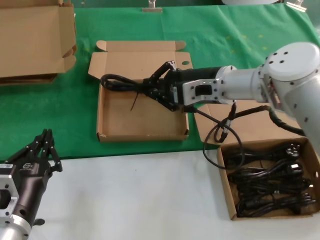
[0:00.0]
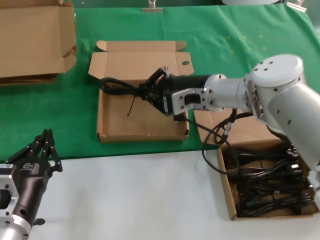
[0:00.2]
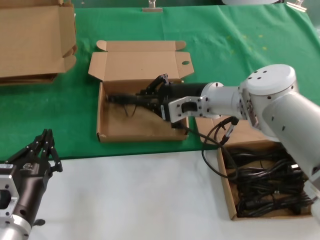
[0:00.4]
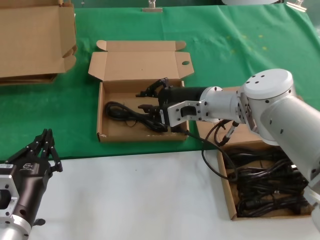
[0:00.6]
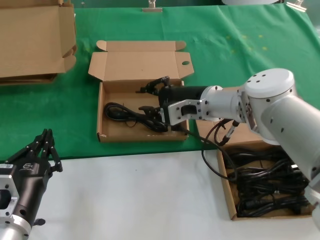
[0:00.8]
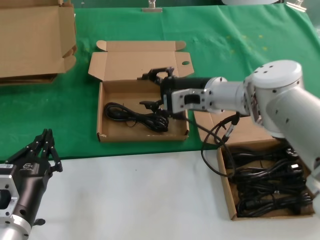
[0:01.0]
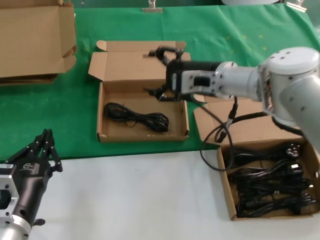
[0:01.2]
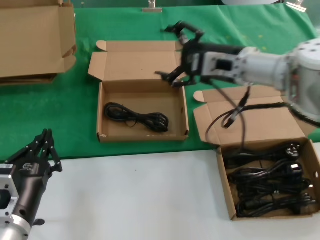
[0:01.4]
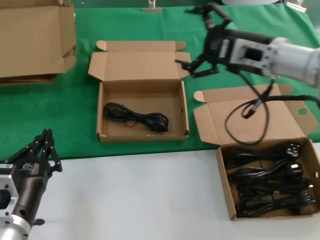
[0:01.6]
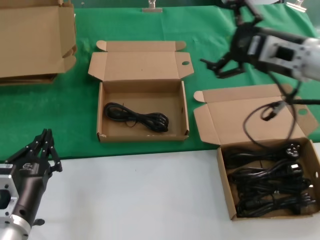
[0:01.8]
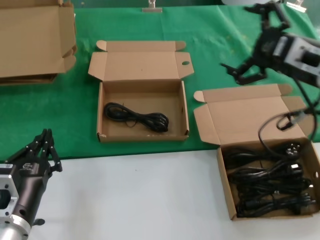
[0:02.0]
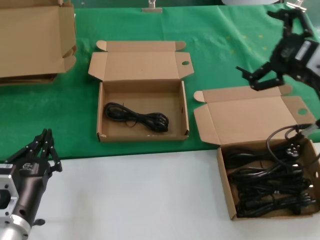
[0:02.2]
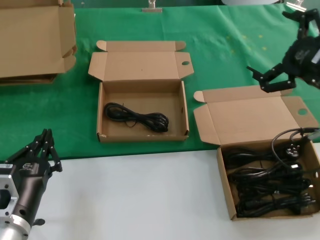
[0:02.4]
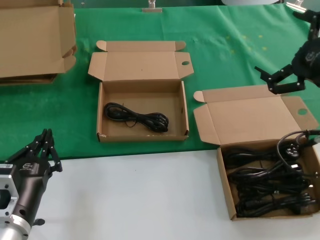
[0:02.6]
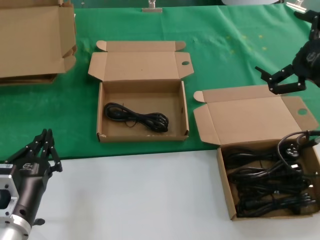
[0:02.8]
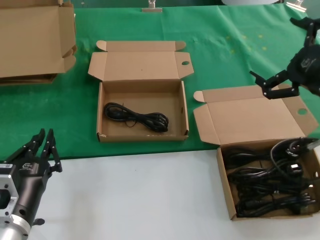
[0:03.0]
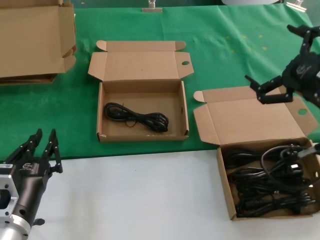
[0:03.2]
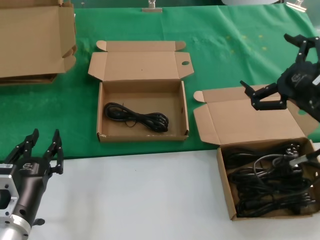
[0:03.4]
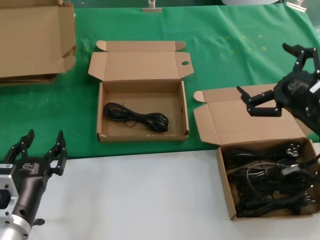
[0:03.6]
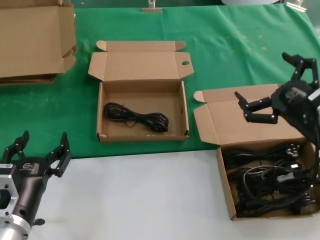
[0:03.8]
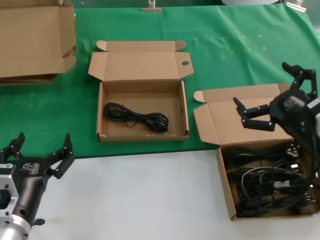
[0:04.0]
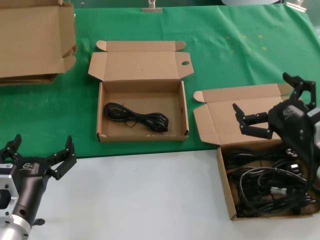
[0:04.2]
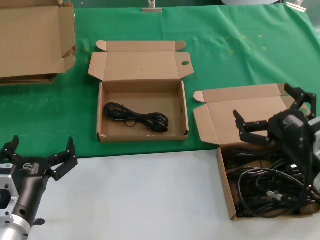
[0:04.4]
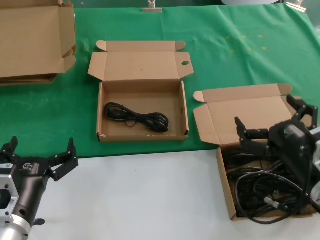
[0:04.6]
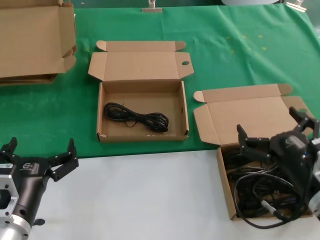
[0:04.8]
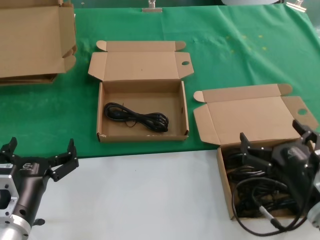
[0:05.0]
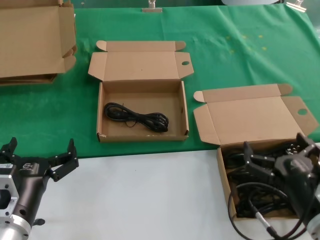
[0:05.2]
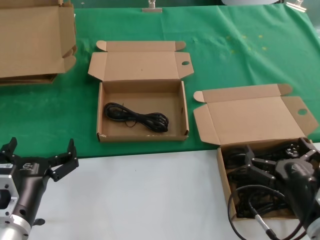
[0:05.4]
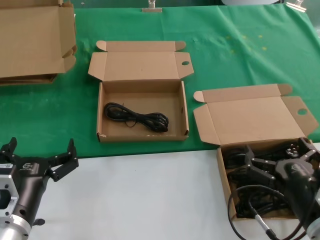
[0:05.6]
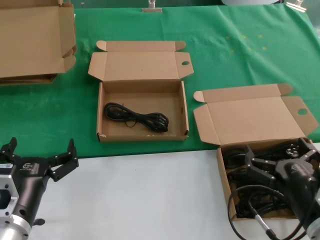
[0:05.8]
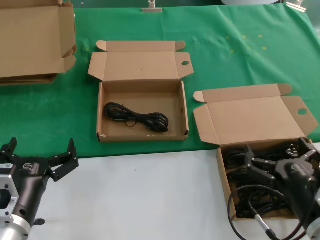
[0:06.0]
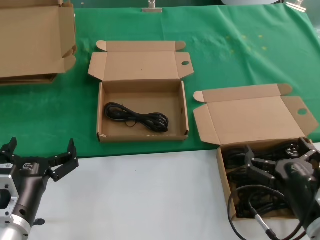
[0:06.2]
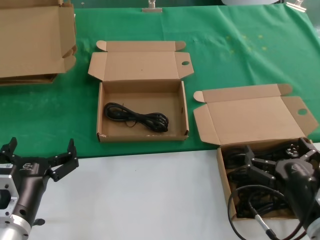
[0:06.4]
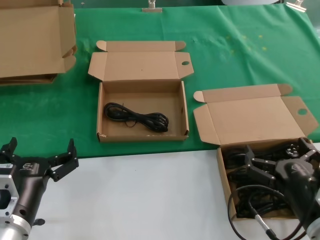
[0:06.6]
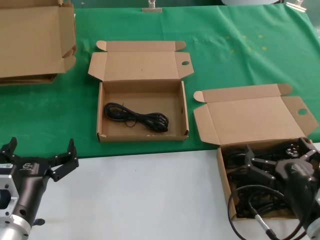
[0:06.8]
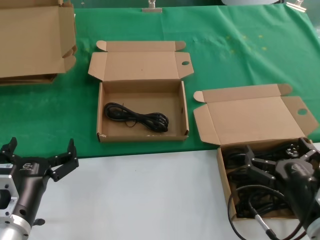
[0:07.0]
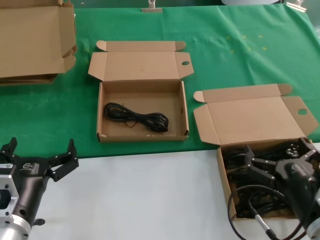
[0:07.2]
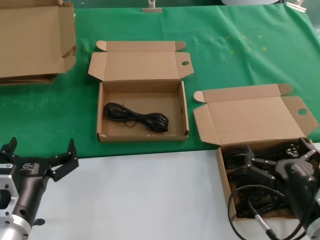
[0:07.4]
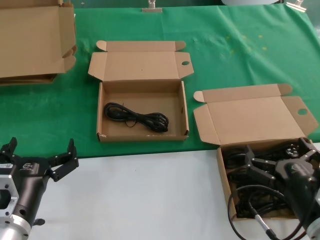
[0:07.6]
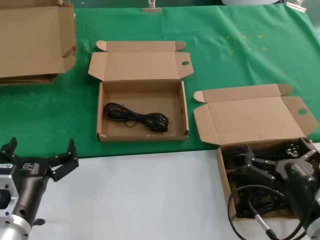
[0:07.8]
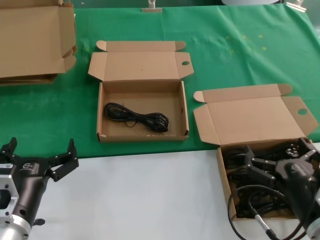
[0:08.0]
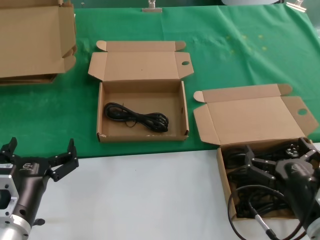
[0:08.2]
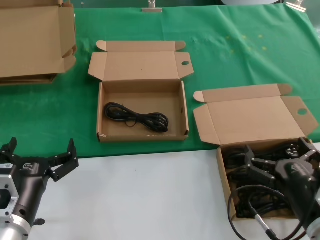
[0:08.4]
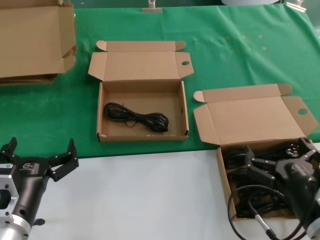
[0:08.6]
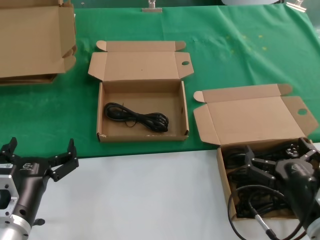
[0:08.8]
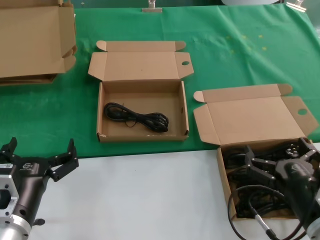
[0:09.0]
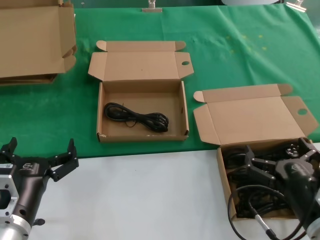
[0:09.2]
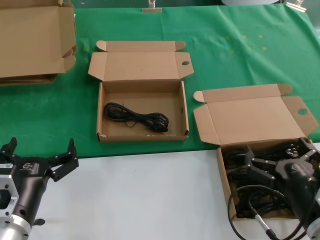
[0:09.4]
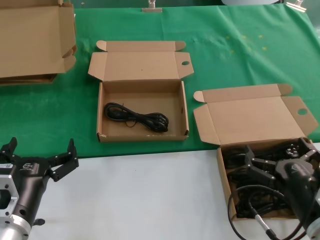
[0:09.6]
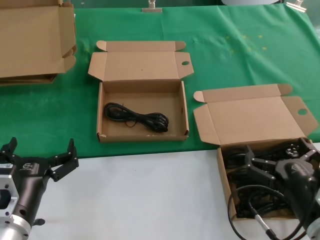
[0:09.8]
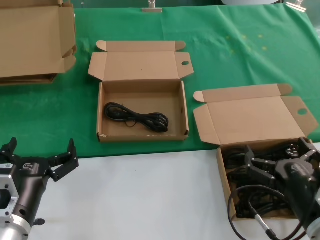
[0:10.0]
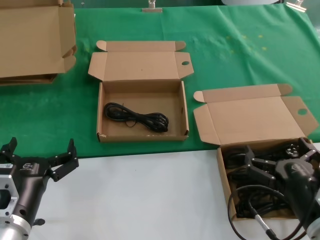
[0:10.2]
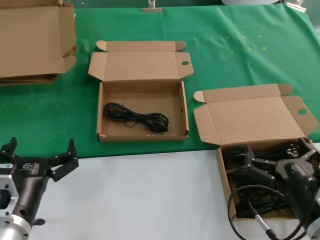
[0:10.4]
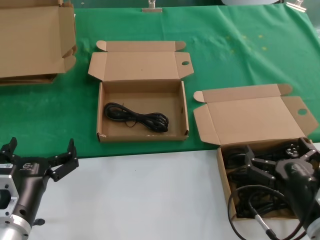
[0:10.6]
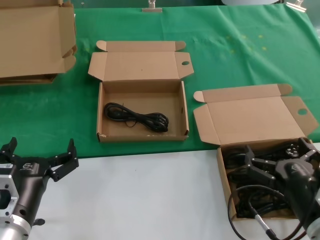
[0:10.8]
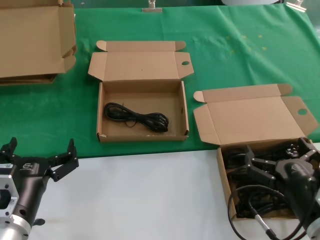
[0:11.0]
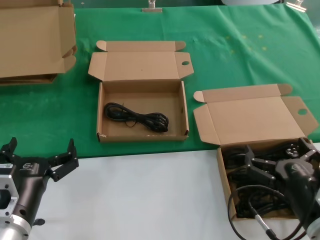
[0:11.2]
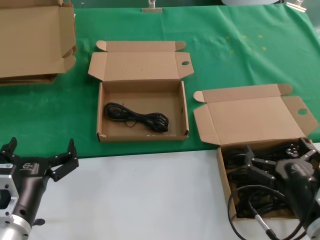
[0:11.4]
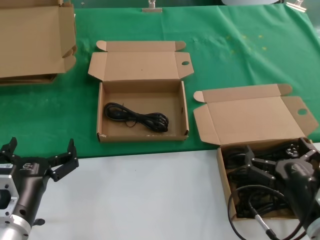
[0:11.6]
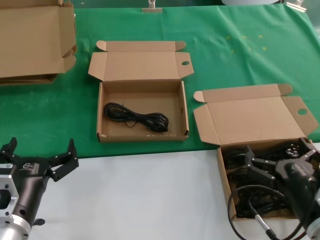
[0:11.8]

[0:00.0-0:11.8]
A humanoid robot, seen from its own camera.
Task of the whole recording: take the parts from the box containing them and put them into an empty box.
0:01.4 to 0:03.0: The right hand is displaced backward and to the right by about 20 cm.
0:03.0 to 0:04.4: The right hand travels downward by roughly 15 cm.
0:04.4 to 0:06.0: The right hand heads downward and backward, covering about 10 cm.
0:06.0 to 0:11.8: Both hands stay put.

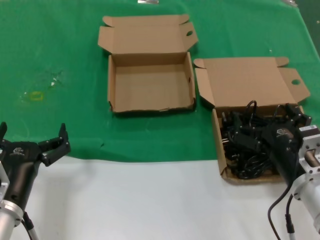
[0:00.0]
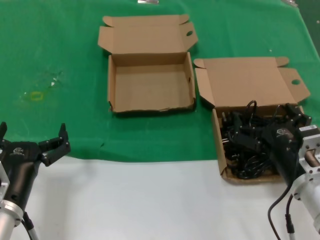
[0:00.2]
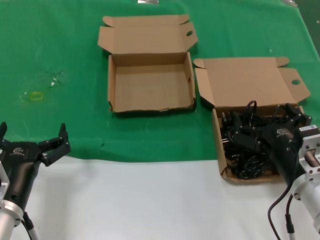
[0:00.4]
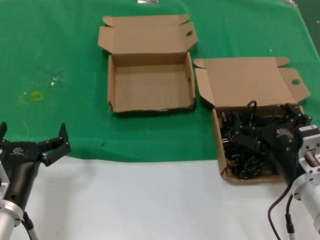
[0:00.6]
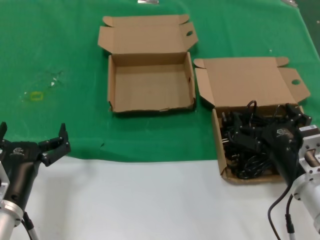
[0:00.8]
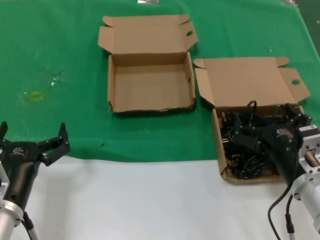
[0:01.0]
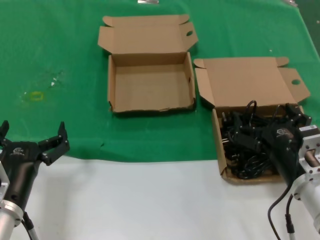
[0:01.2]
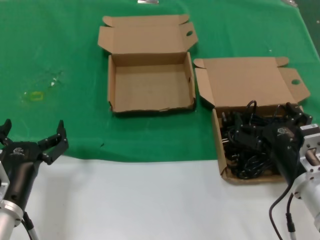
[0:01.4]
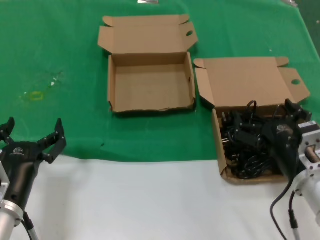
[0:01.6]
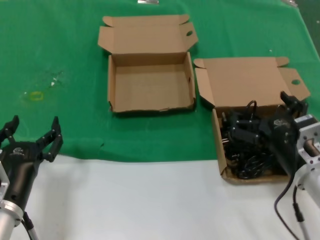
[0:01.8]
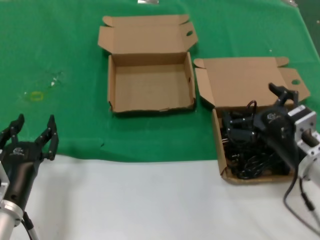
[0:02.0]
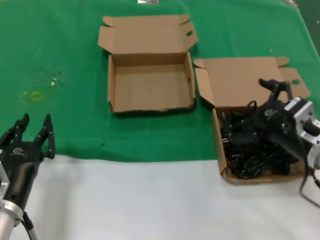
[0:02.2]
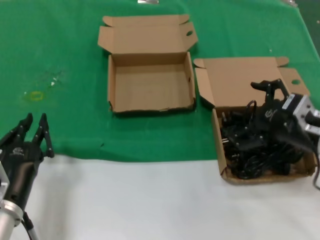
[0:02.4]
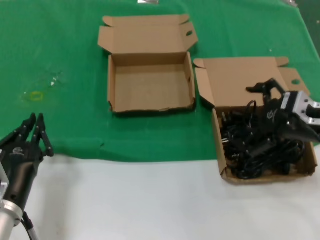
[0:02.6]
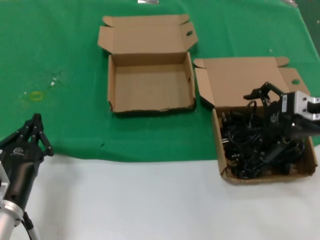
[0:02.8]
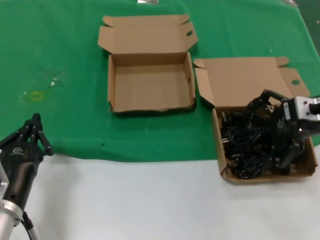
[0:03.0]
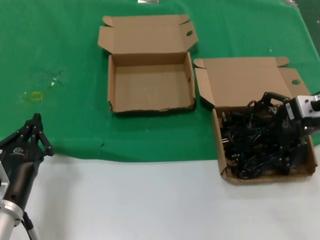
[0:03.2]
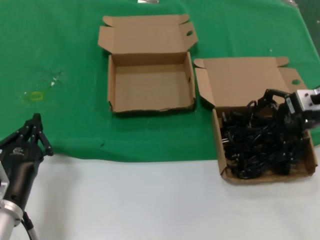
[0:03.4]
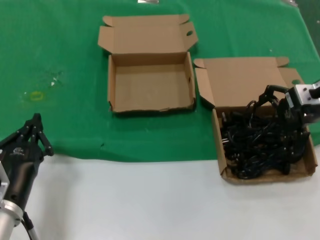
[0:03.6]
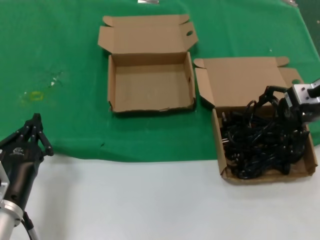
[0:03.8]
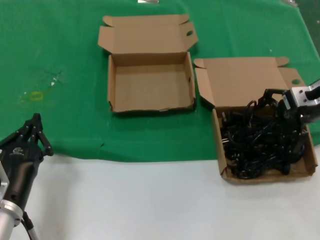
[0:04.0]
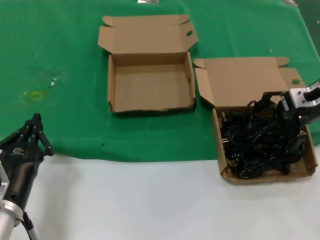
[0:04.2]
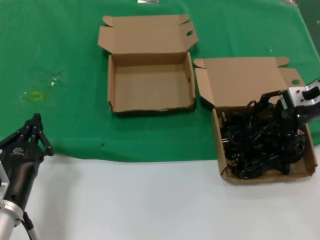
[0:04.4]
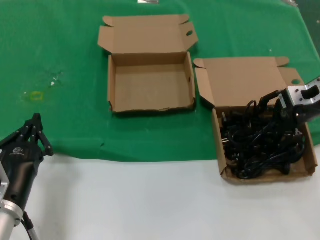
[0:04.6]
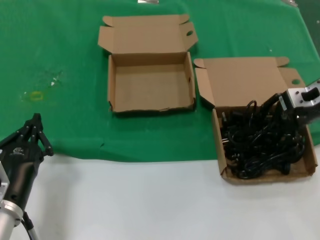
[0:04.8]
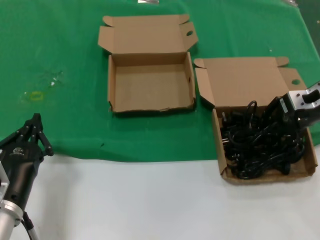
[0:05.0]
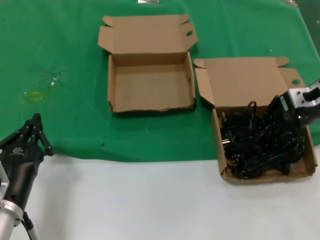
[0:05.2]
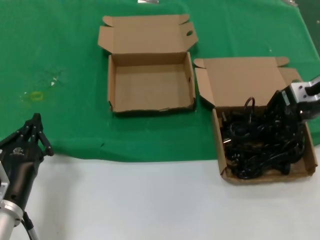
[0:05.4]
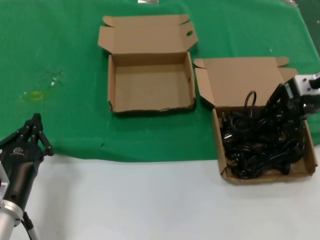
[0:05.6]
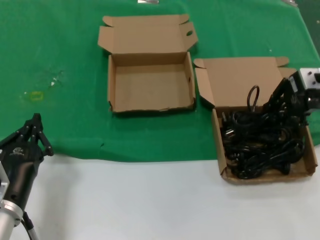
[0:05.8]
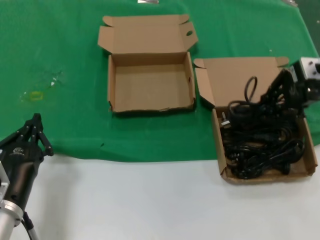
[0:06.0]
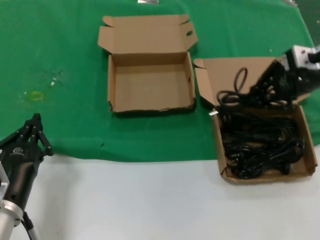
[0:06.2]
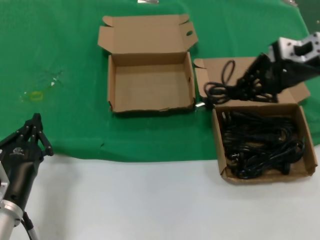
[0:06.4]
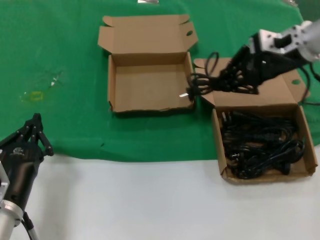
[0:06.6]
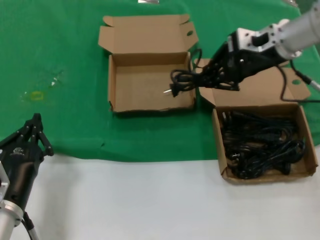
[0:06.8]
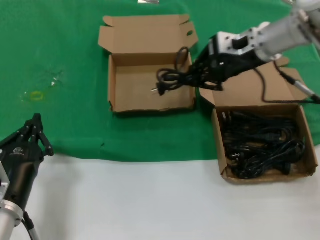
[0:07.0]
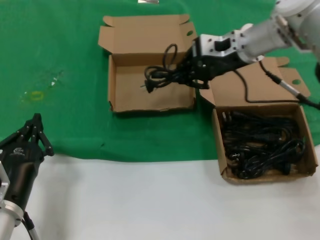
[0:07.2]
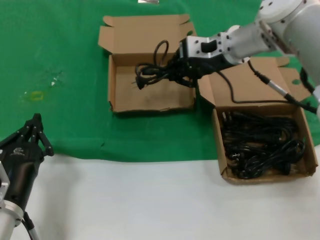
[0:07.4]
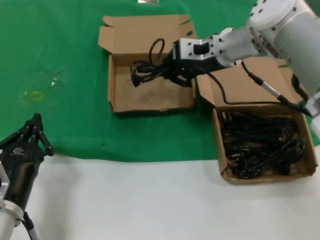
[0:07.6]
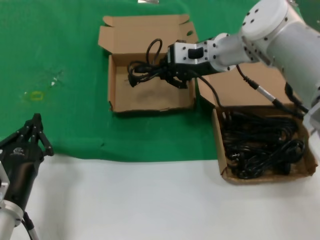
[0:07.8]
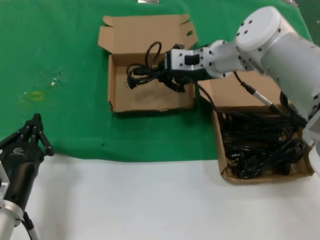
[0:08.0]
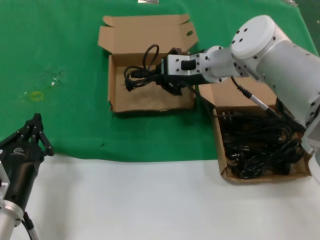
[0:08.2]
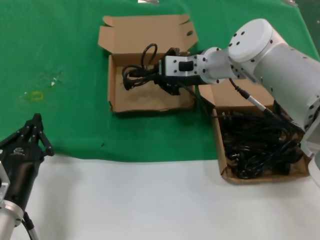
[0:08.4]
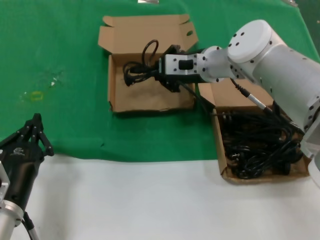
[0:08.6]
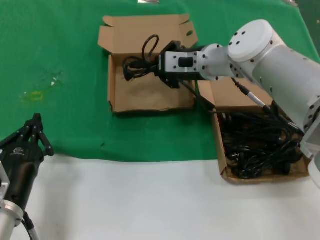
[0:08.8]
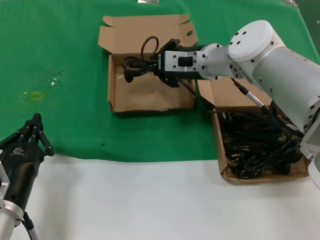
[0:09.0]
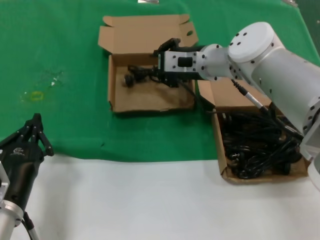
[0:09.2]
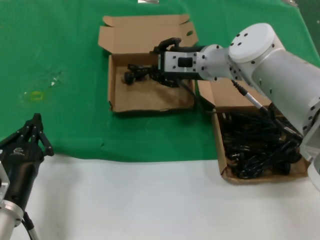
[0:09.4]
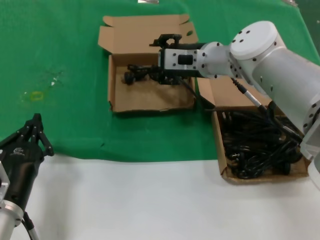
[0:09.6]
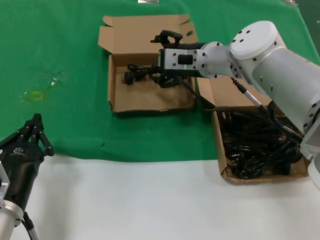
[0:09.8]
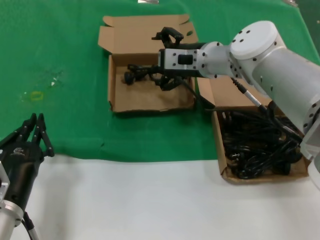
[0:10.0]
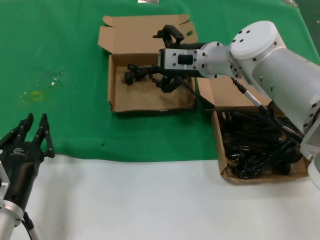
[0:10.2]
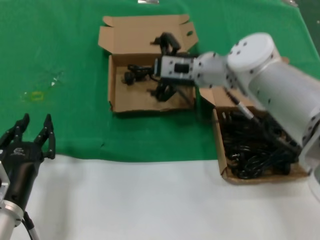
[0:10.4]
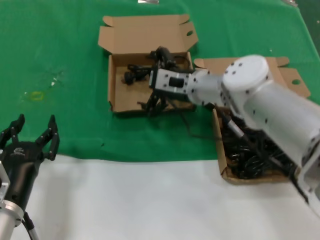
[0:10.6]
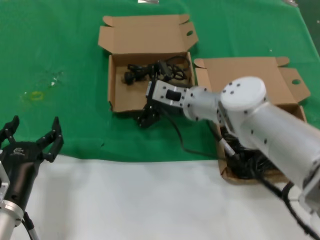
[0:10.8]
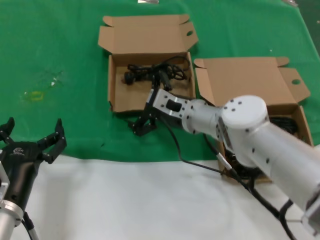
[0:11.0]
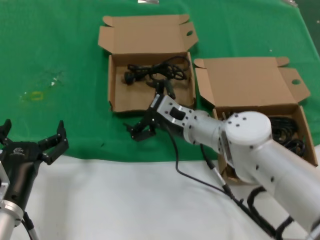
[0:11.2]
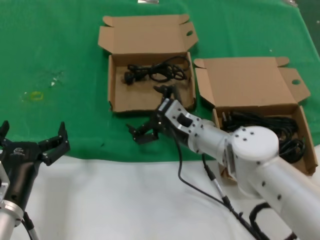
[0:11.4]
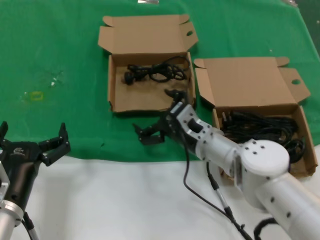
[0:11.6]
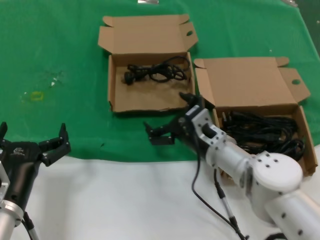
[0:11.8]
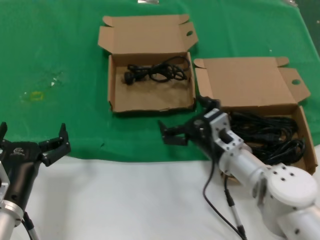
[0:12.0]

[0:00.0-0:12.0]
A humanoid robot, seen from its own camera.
Task of the whole recording: take the parts from the box containing them and put them into an empty box.
Step, 0:00.0 to 0:04.4: Grasp the data cable.
Step, 0:04.6 to 0:09.2: Place the data cable in the another box.
0:00.0 to 0:01.6: Neither hand changes place.
0:01.6 to 0:03.0: The right hand is displaced upward, forward and to the right by roughly 20 cm.
0:03.0 to 0:04.4: The right hand travels forward by approximately 10 cm.
0:04.4 to 0:06.0: The right hand moves upward, roughly 5 cm.
0:06.0 to 0:07.6: The right hand travels to the left and forward by approximately 20 cm.
0:07.6 to 0:09.0: The right hand moves roughly 5 cm.
0:09.0 to 0:10.4: The hands make only small movements.
0:10.4 to 0:12.0: The right hand goes some 20 cm backward and downward.
